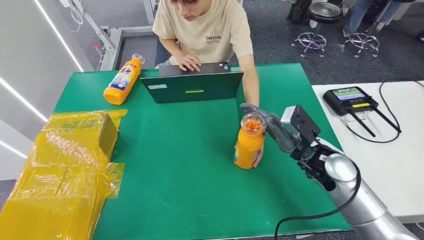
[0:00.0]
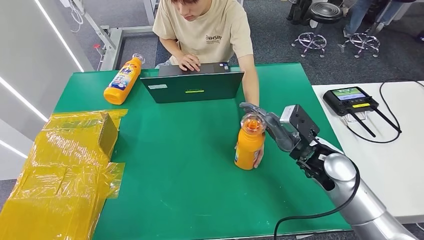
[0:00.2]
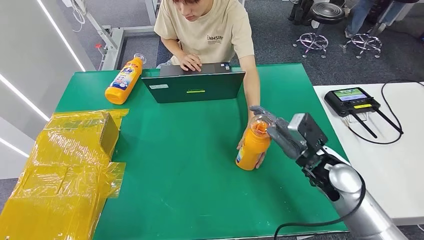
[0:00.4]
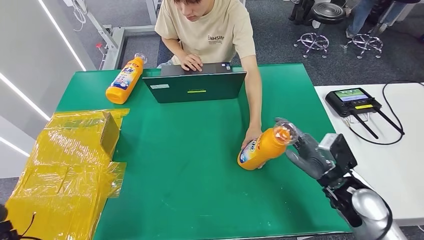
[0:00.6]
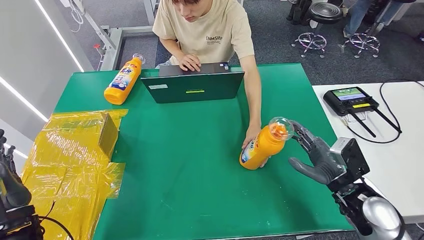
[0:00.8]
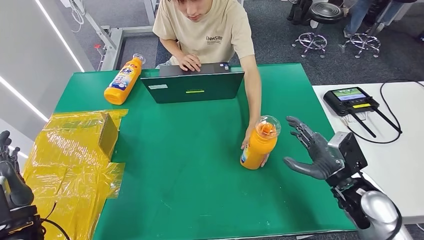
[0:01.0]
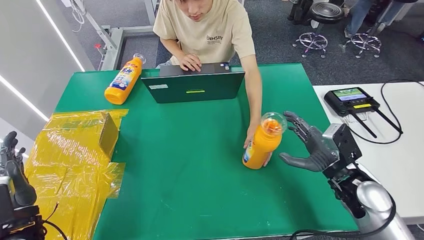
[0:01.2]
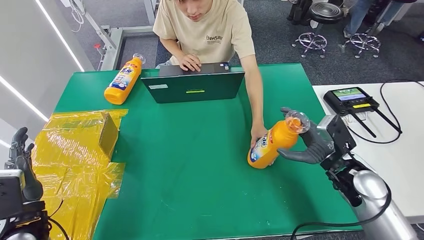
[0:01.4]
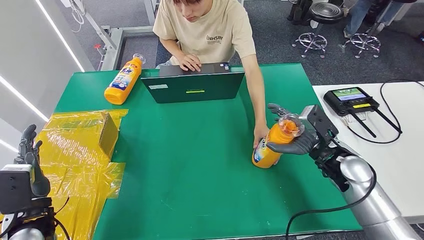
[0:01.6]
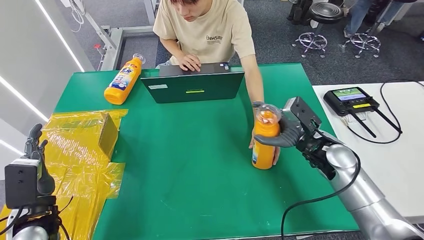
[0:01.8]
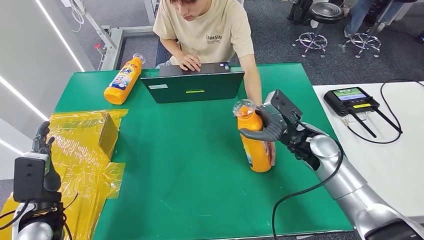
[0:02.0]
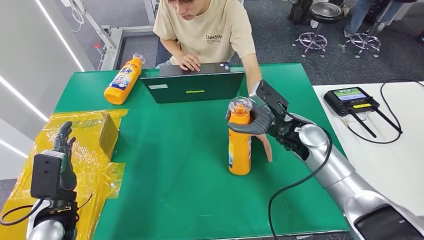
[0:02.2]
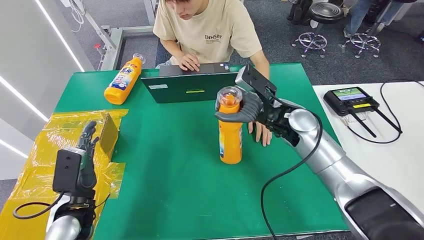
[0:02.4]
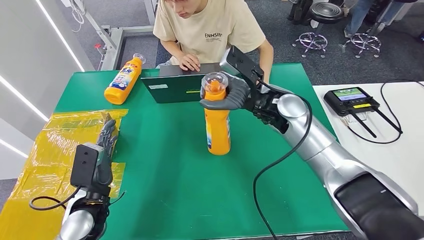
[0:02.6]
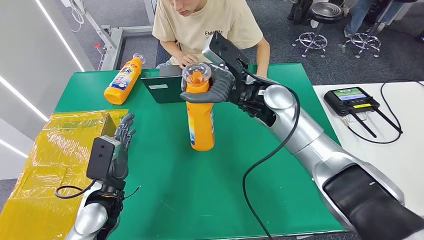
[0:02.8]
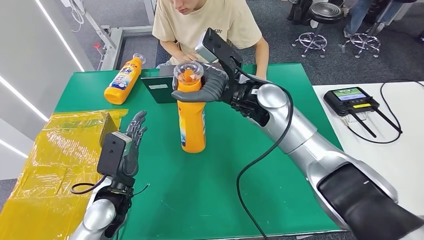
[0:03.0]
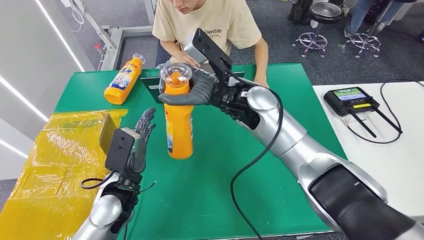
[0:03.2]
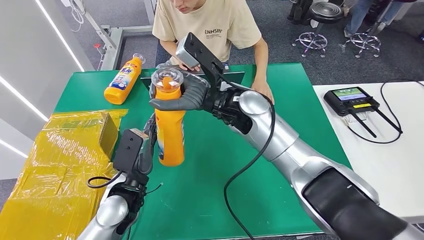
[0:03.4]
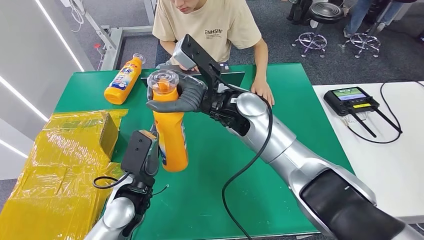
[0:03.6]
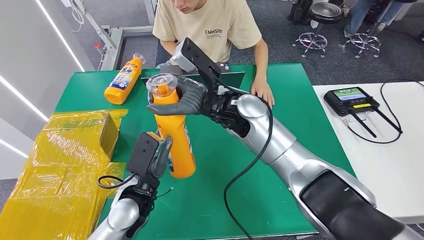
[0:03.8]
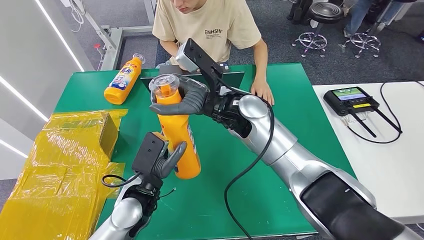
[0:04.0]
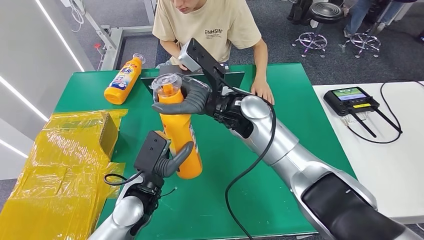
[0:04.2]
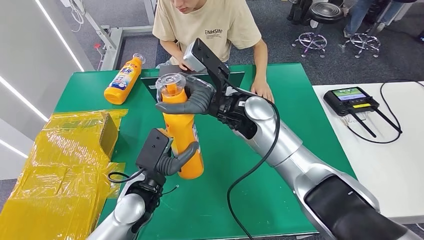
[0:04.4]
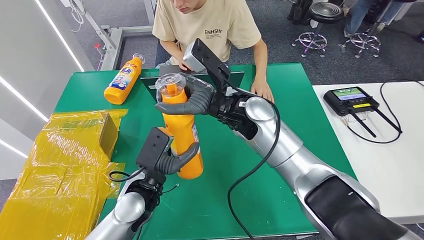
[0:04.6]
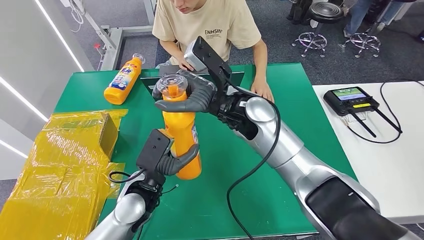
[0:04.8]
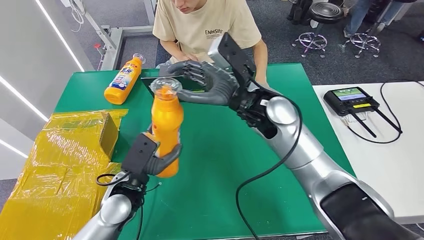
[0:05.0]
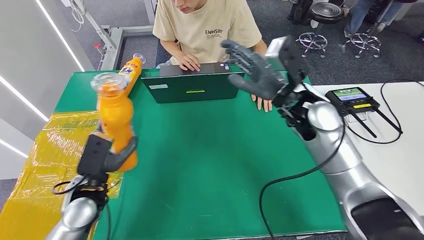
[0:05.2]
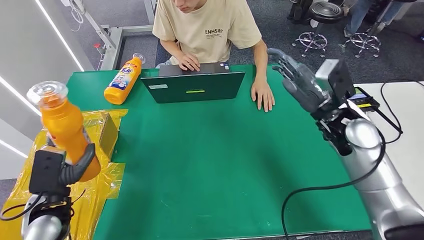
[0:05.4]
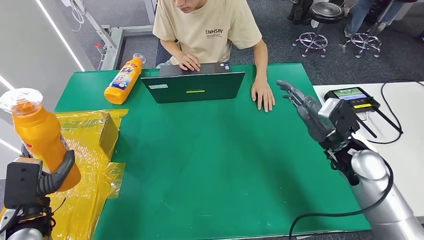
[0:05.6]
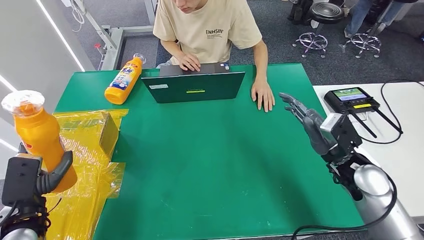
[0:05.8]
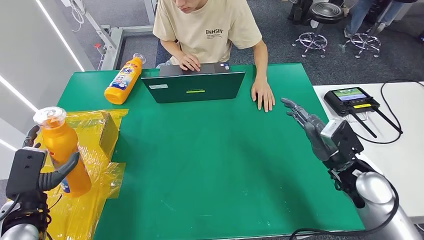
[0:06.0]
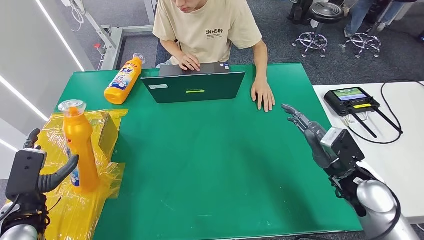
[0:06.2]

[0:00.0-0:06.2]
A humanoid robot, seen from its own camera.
Step, 0:00.0 to 0:02.8: Pick up the bottle from the table.
Step, 0:03.0 to 0:06.2: Turn the bottle to the front side.
0:03.2 to 0:04.6: The left hand goes some 5 cm to the right.

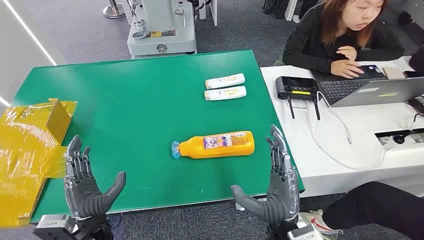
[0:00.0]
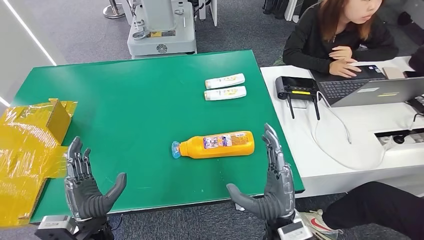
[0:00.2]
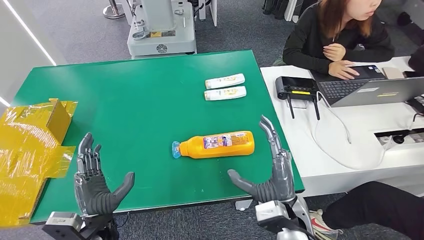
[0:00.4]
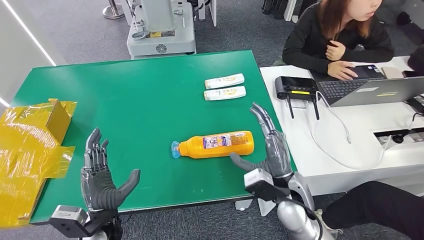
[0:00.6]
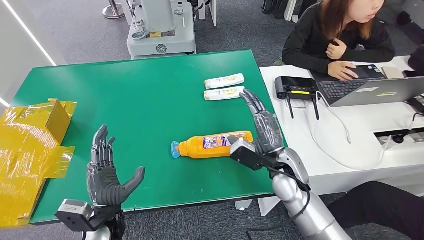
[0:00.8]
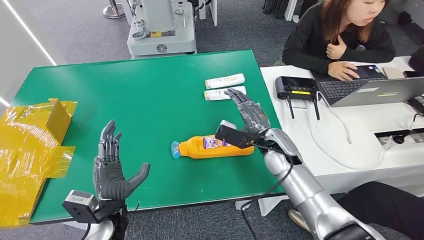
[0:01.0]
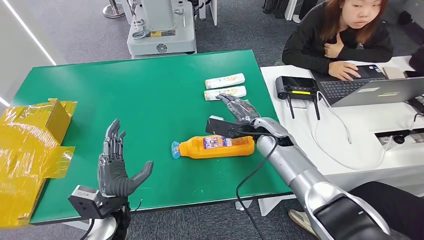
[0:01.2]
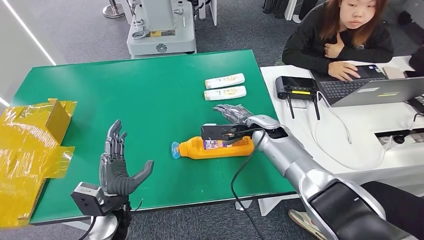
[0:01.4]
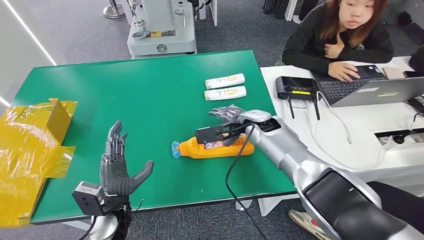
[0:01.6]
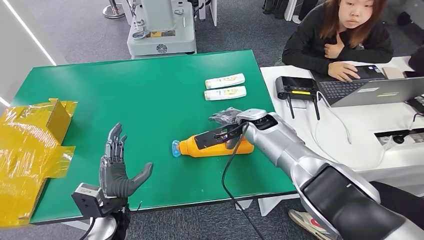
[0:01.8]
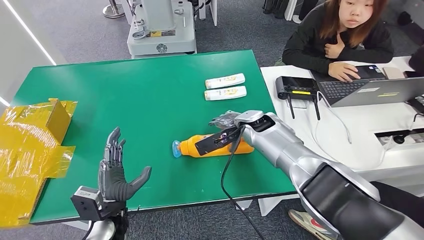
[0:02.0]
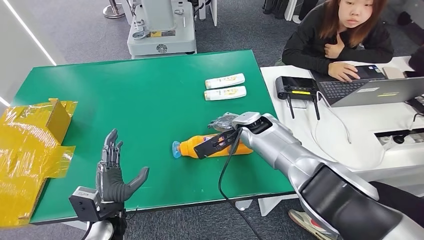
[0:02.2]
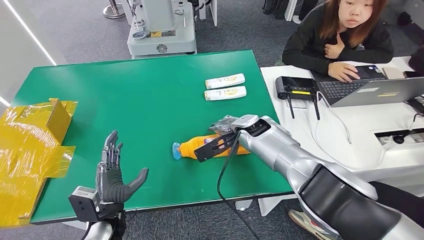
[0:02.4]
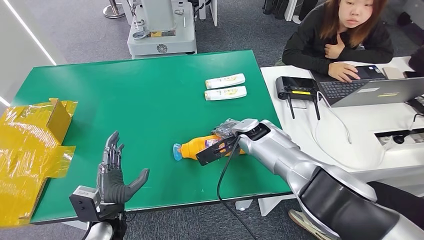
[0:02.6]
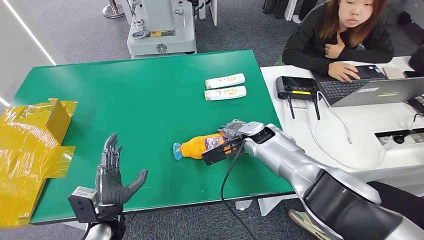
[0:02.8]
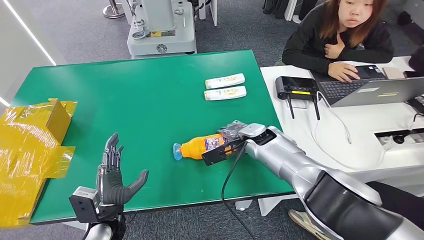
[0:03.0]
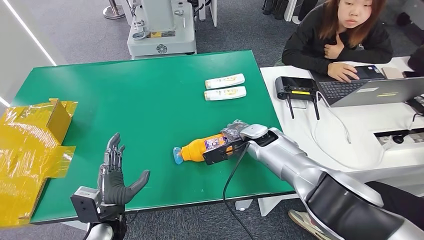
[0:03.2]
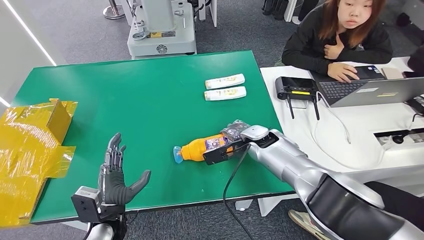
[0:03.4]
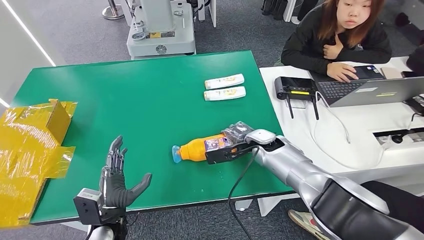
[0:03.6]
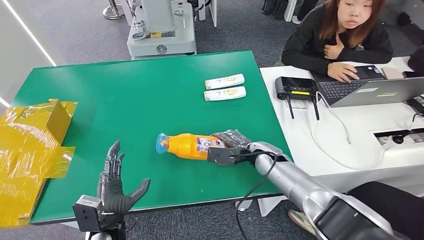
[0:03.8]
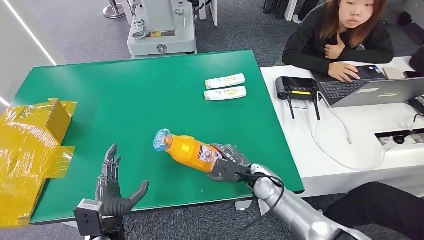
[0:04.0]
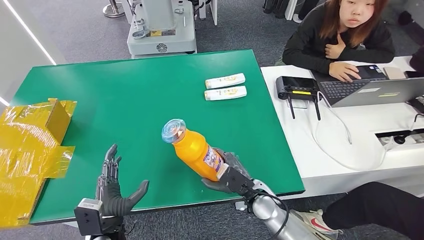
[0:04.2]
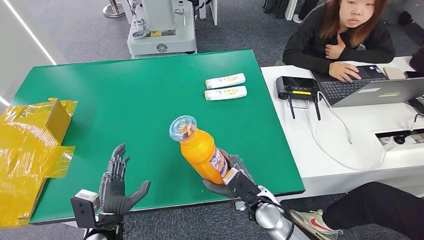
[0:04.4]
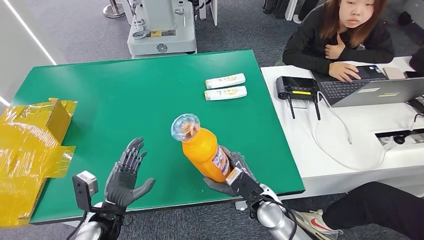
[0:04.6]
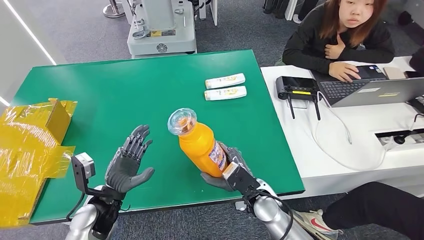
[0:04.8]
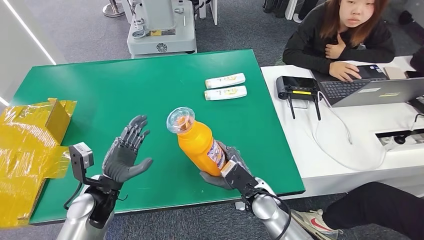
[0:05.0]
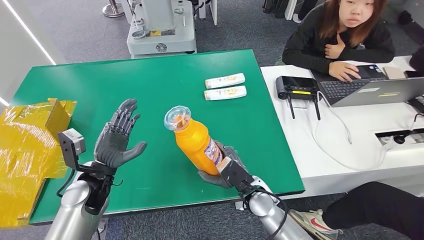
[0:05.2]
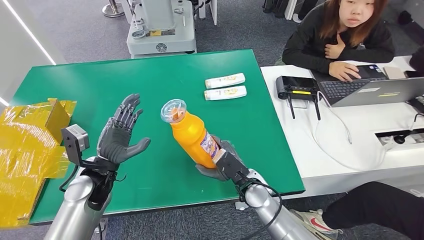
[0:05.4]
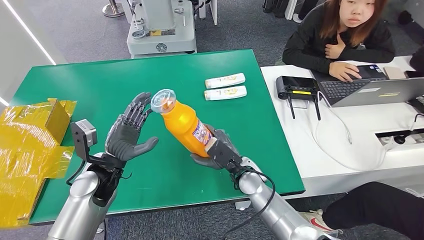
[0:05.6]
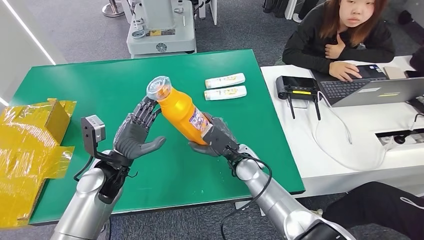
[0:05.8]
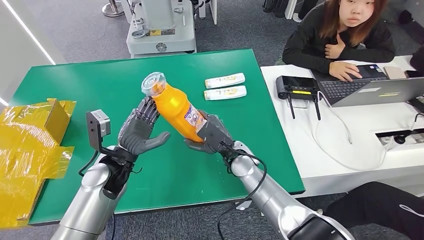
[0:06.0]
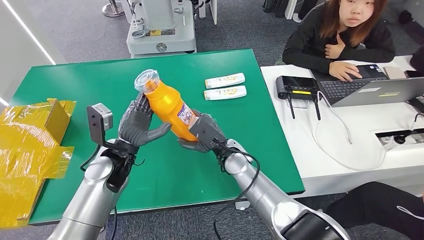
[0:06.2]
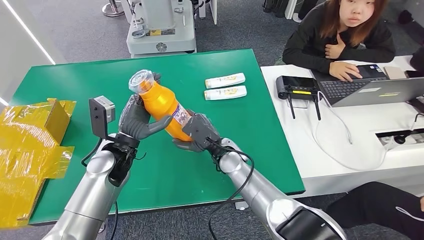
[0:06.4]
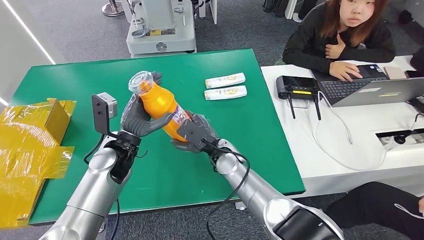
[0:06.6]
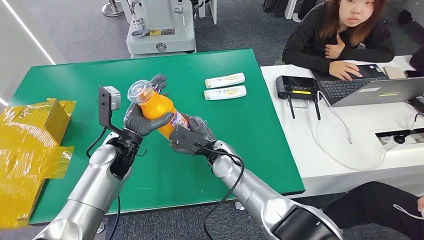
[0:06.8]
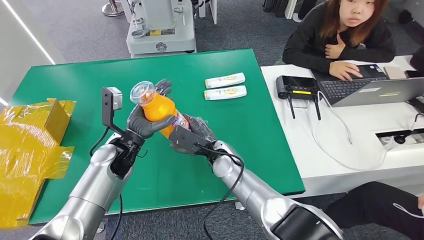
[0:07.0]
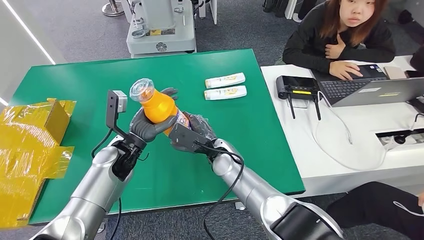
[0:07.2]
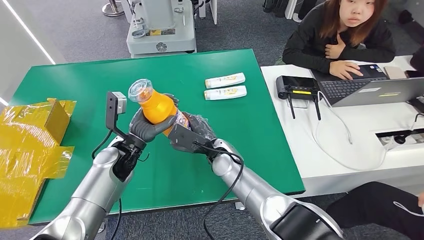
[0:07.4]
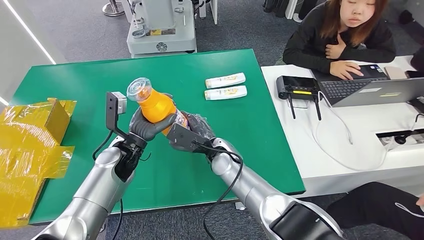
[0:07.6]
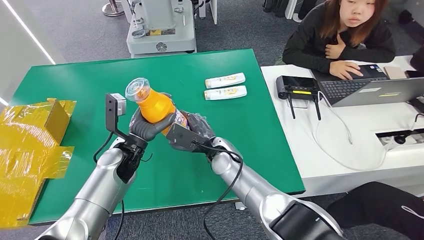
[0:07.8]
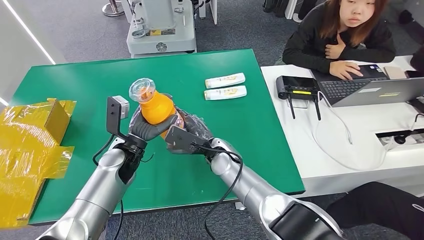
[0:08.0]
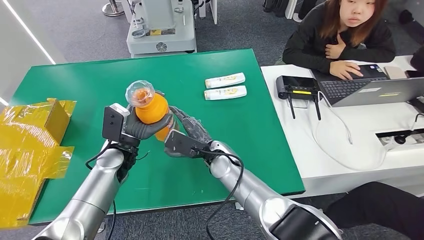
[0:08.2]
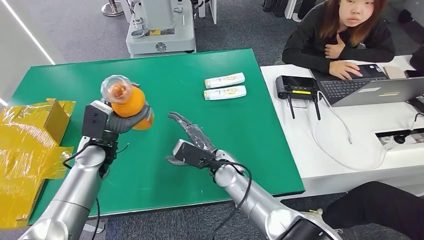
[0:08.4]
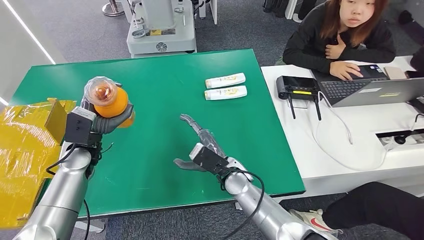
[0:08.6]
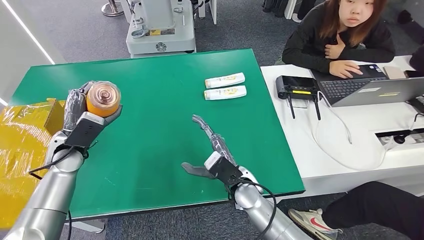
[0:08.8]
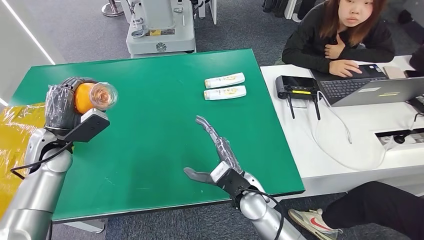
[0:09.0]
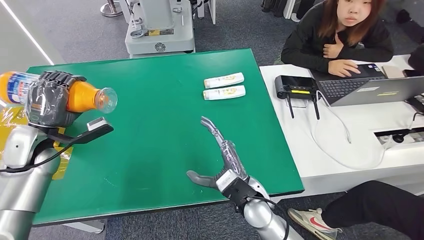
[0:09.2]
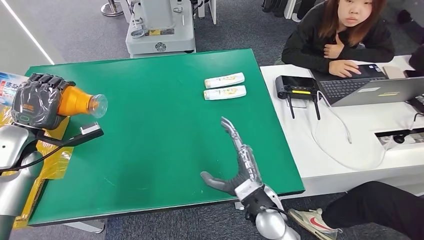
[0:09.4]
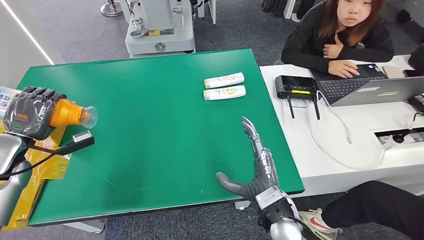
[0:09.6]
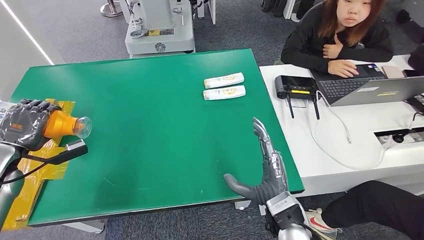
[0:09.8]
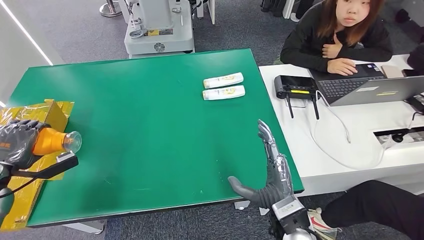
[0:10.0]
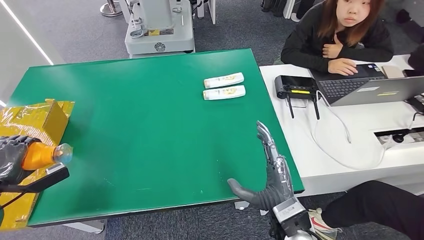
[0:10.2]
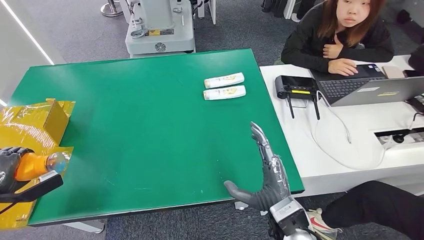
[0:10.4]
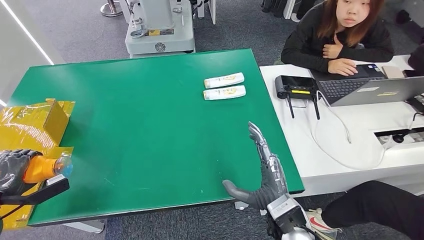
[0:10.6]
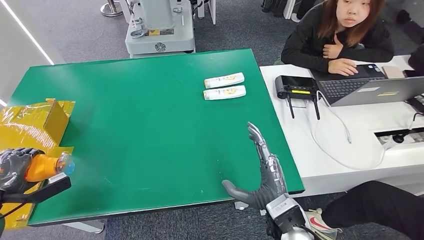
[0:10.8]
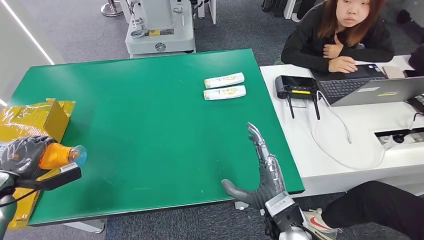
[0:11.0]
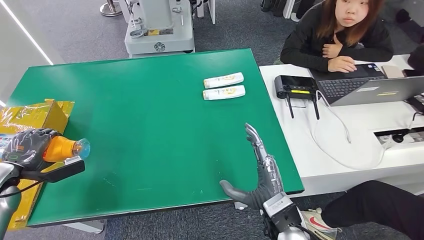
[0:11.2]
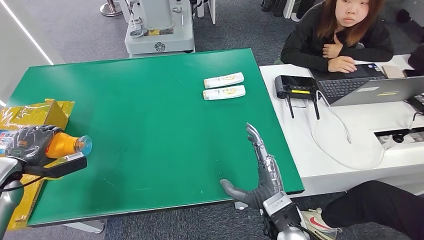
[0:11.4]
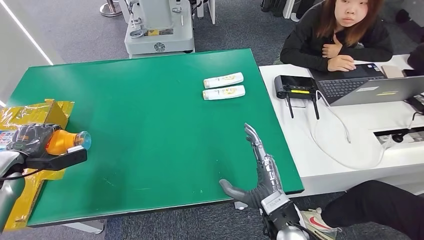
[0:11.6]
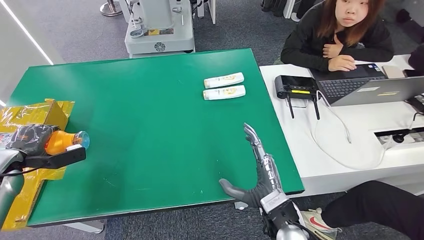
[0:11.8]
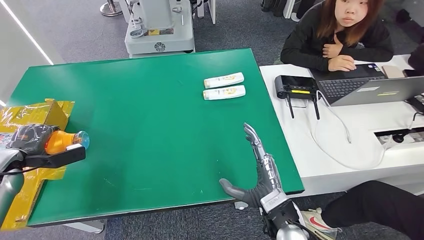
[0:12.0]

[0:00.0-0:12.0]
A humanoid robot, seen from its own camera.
Step, 0:00.0 to 0:05.2: Pick up the bottle from the table.
0:01.6 to 0:03.0: The hands move only a little.
0:03.0 to 0:04.4: The right hand heads backward and downward, covering roughly 20 cm.
0:04.4 to 0:06.0: Both hands travel together forward and upward, roughly 15 cm.
0:06.0 to 0:07.6: The right hand changes place by approximately 5 cm.
0:09.0 to 0:10.4: The right hand travels backward and to the right by roughly 10 cm, while the left hand moves to the left and backward, some 20 cm.
0:10.4 to 0:12.0: The left hand is displaced forward by roughly 10 cm.
